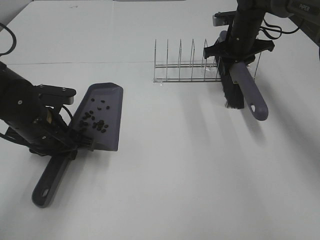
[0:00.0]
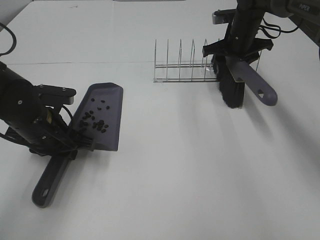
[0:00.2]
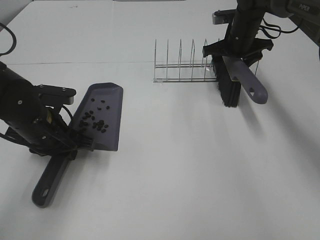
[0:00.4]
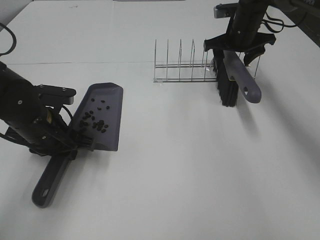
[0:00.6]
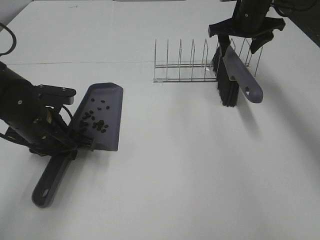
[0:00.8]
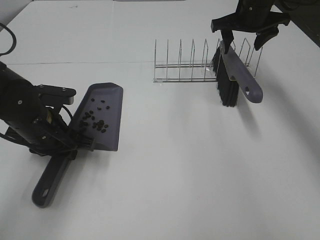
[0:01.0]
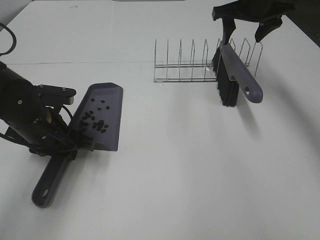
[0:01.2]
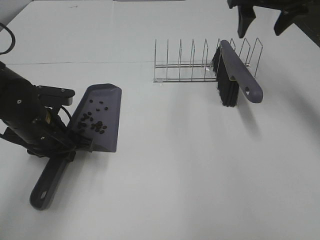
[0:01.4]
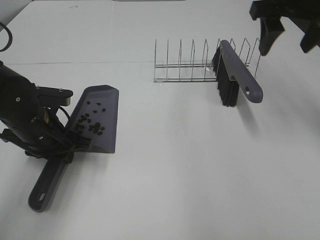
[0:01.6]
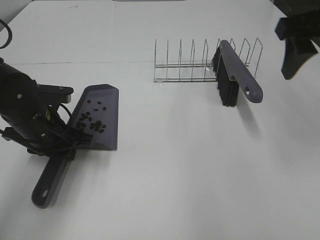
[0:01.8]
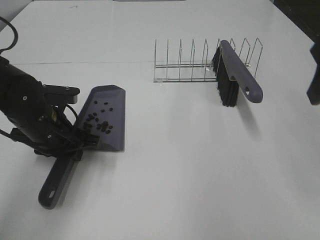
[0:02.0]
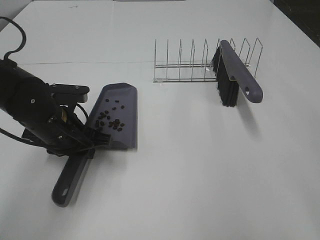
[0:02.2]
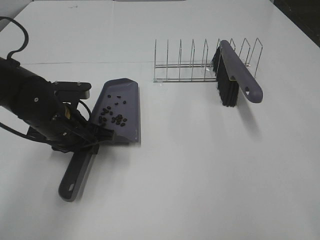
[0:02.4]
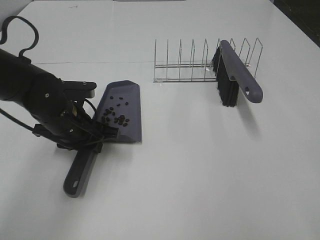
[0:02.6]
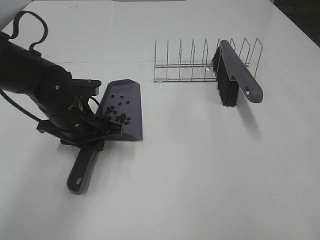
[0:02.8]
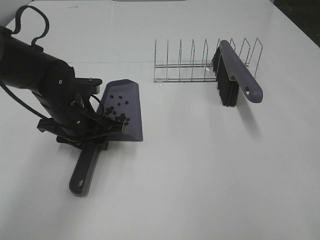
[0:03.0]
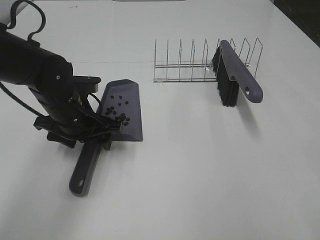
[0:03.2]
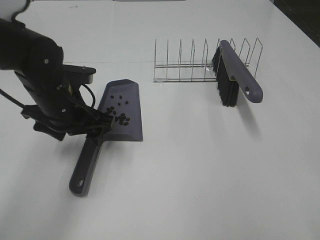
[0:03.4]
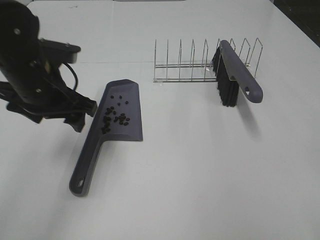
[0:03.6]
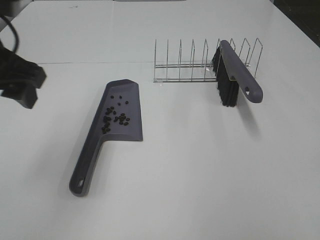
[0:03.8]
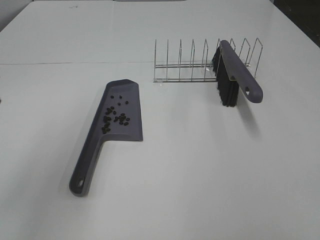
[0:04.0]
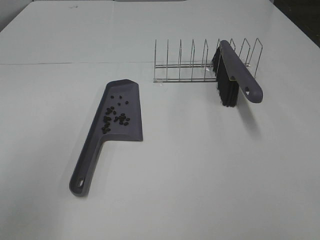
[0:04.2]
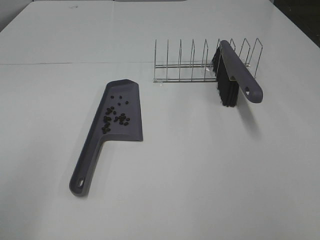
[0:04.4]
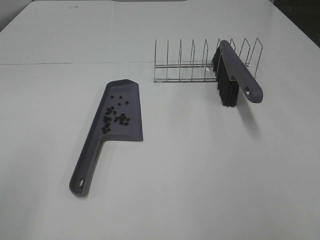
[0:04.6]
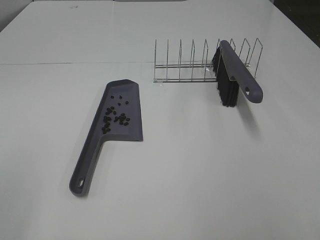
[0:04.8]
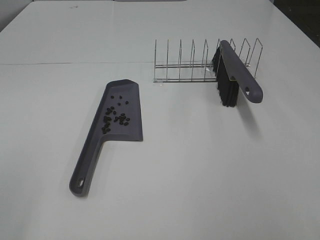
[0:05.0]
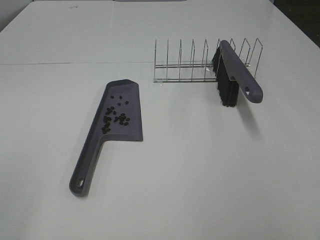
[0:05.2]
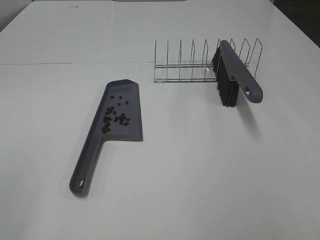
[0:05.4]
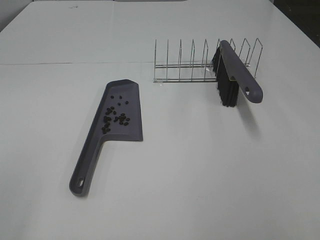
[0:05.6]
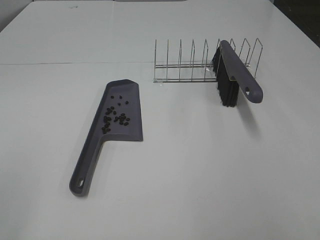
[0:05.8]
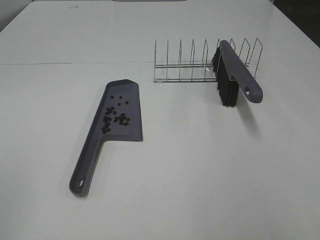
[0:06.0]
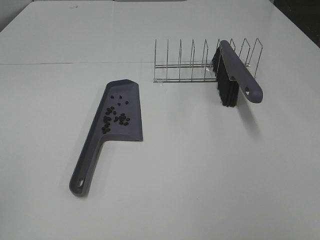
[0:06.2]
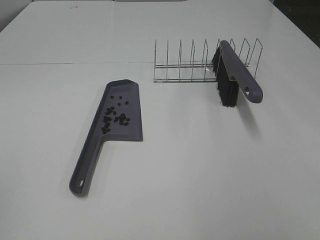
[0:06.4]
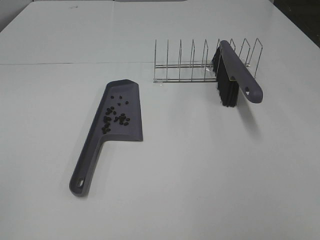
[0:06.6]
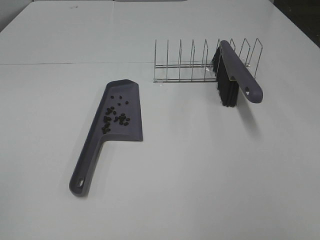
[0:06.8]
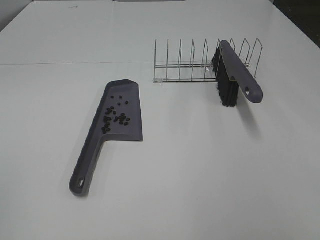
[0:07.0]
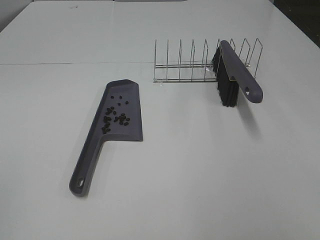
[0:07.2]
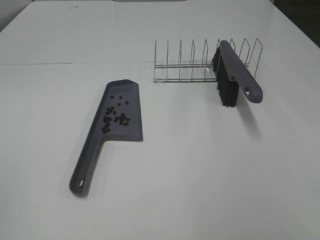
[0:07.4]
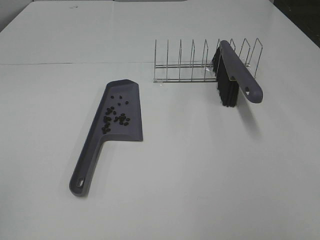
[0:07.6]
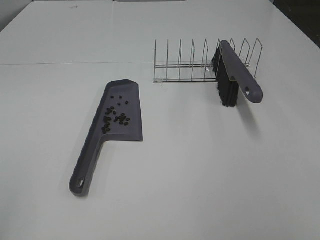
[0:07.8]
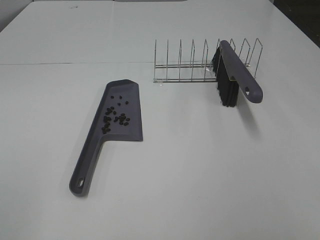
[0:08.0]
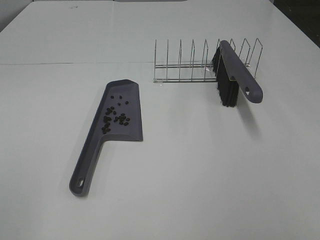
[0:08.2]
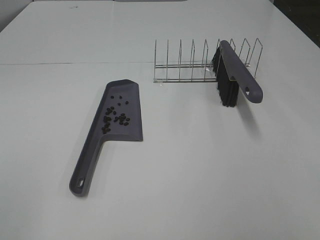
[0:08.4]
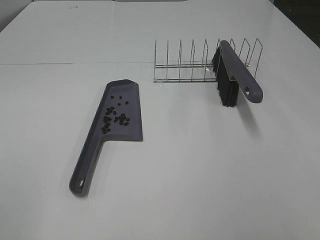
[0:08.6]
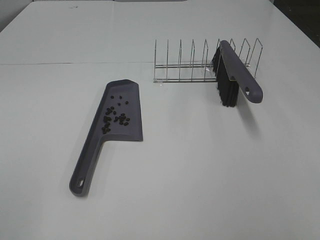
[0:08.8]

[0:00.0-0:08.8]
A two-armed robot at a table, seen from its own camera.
Task of the whole recording: Sweep Coffee Bean.
0:00.0 to 0:01.4: The right gripper shifts about 20 cm upward and backward, and opens.
0:01.4 to 0:03.0: The right gripper shifts roughly 35 cm backward. Meanwhile the left gripper goes approximately 5 cm to the right, and opens up.
0:03.0 to 0:04.4: The left gripper shifts some 35 cm backward, upward and to the left, and opens up, while the right gripper travels backward by about 5 cm.

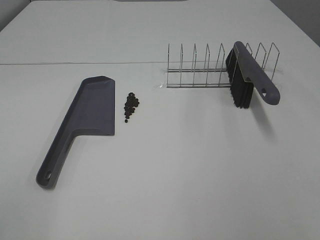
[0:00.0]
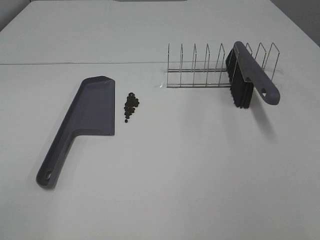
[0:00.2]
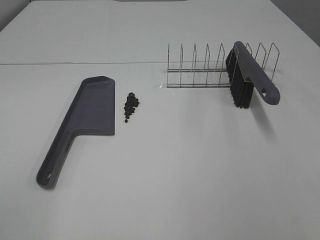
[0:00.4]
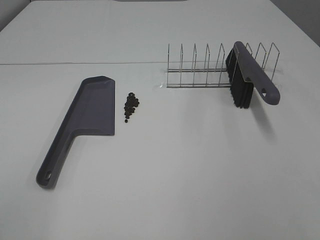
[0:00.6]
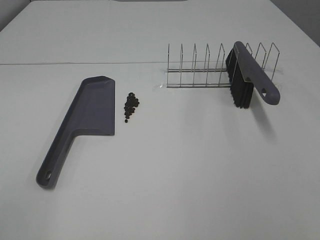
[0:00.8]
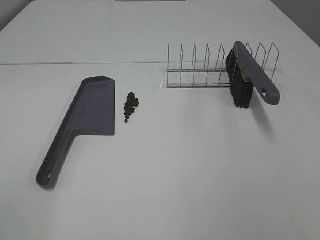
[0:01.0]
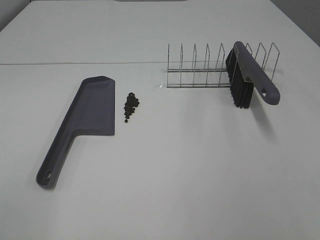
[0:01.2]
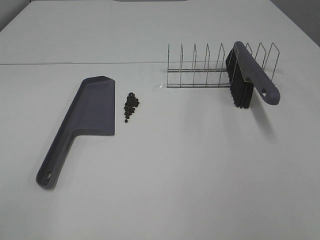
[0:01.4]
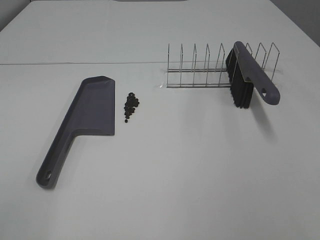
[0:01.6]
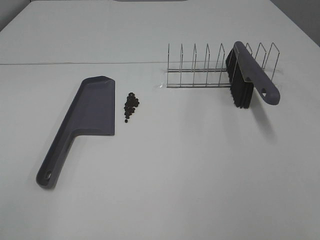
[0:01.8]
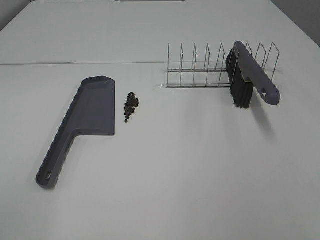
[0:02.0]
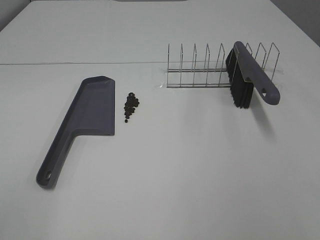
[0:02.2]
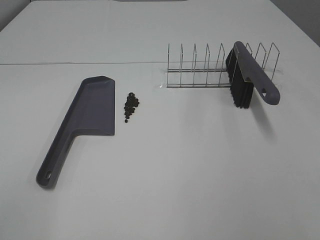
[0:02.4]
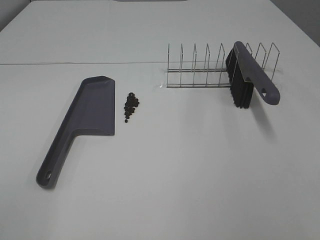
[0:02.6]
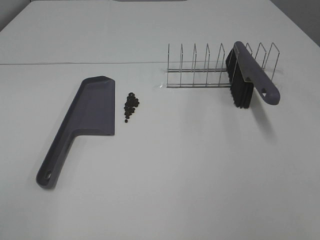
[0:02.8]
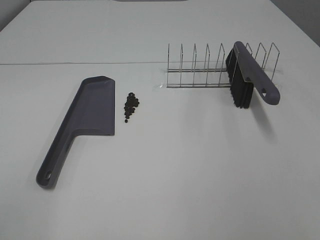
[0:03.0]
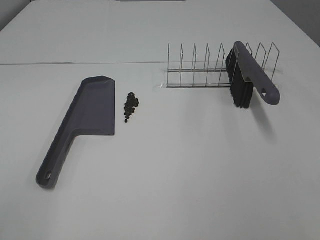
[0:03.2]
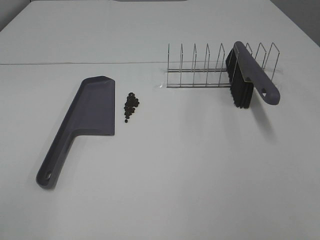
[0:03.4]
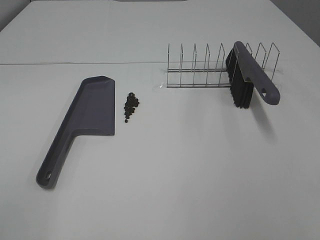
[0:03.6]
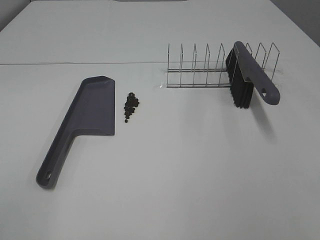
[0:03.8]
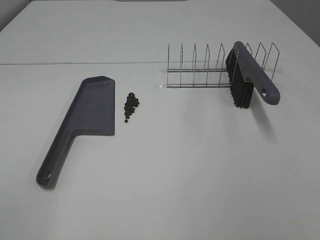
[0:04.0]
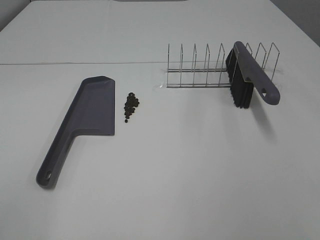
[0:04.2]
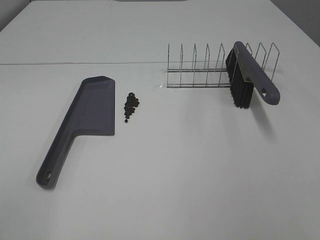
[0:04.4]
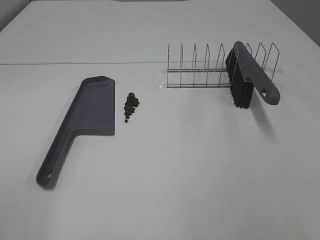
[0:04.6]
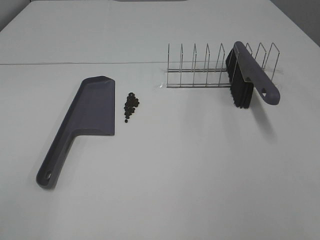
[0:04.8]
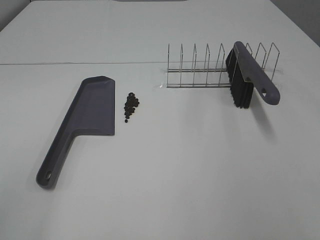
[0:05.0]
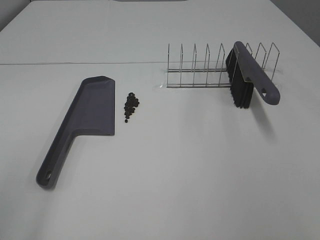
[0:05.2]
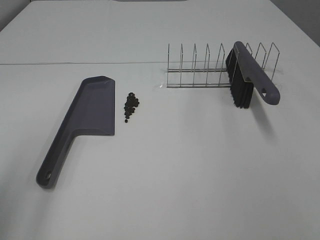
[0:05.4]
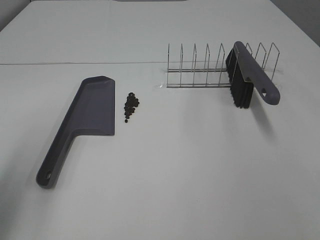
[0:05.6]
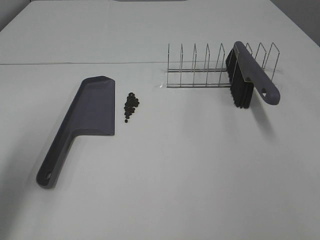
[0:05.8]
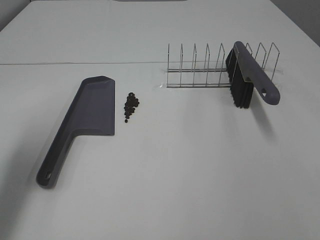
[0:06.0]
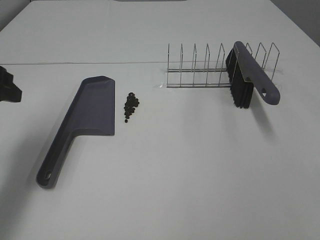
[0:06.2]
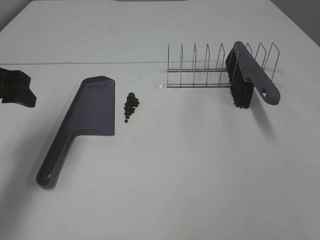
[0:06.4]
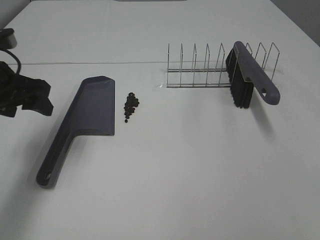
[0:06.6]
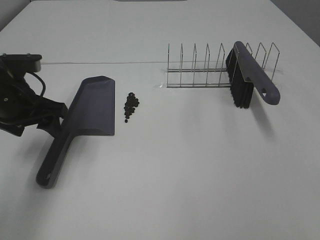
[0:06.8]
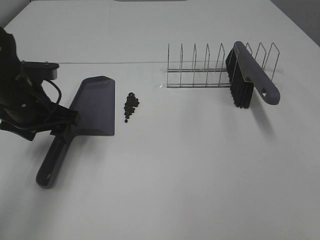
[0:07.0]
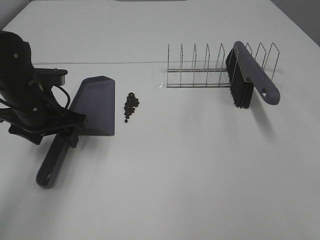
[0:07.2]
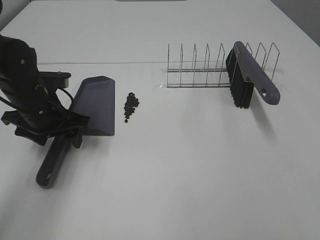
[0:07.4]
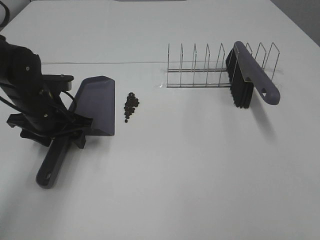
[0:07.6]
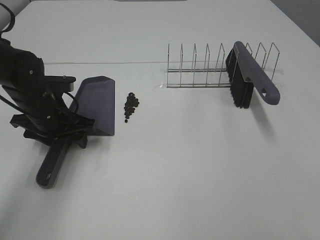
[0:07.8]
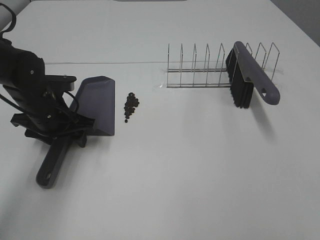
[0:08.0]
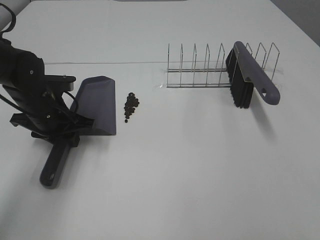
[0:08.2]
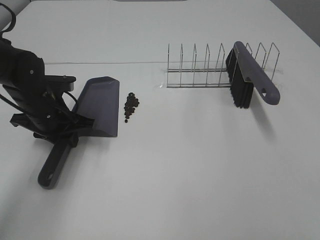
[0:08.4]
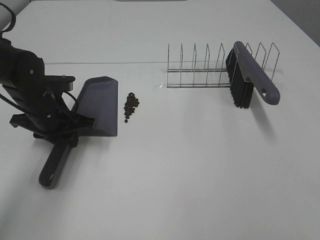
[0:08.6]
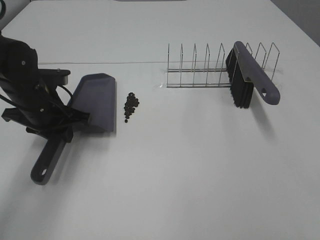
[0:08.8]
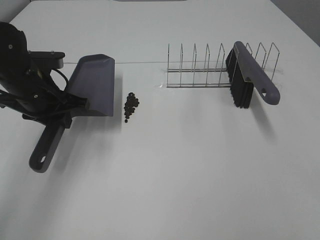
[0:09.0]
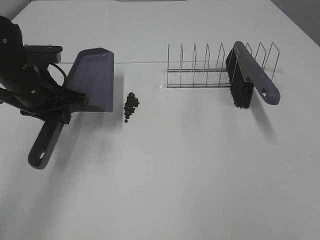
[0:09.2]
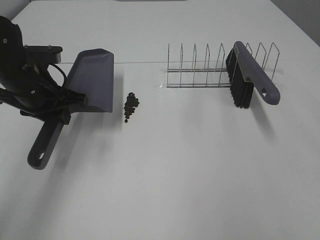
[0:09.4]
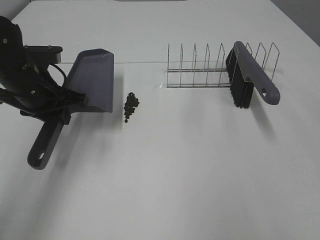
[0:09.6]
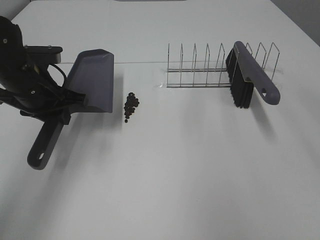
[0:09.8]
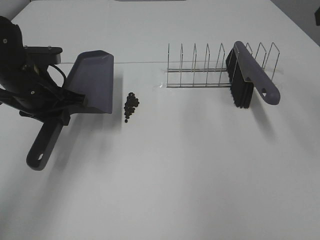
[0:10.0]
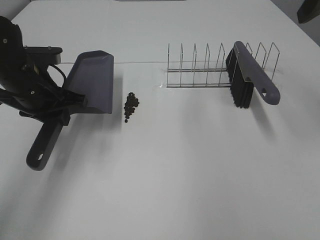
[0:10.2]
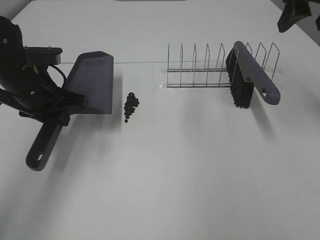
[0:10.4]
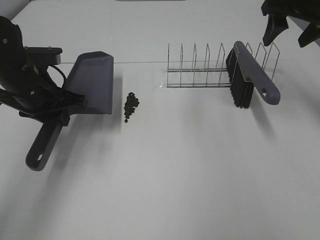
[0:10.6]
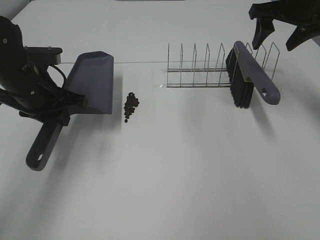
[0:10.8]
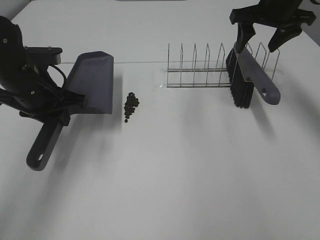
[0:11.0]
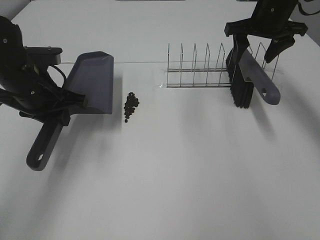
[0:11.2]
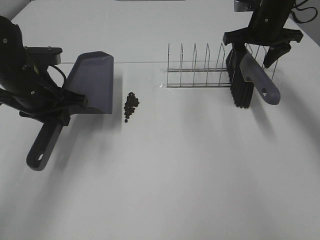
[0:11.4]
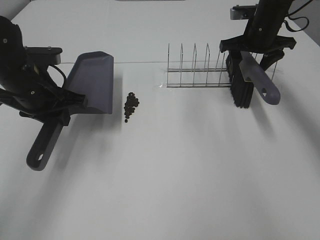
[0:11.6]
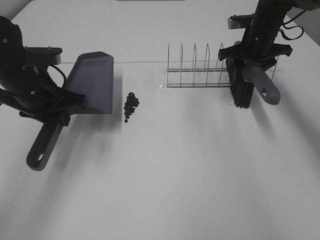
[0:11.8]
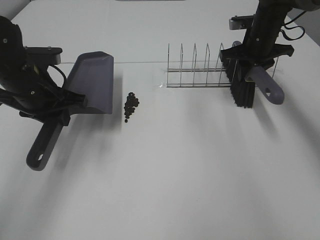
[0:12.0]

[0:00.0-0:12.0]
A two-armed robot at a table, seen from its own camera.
Task of the whole recording: Sweep Coffee Bean.
Step, 0:00.0 to 0:08.6: Left hand: grab the dustpan.
0:00.0 to 0:04.4: The two grippers keep their place.
0:04.4 to 0:06.0: The left gripper shifts roughly 25 cm forward.
0:06.0 to 0:07.6: The left gripper travels downward, forward and to the right by some 20 cm.
0:07.6 to 0:09.0: The left gripper closes its fingers.
0:09.0 to 0:10.4: The right gripper heads forward, covering approximately 35 cm.
0:10.4 to 0:12.0: The right gripper heads downward and forward, covering roughly 20 cm, and closes up.

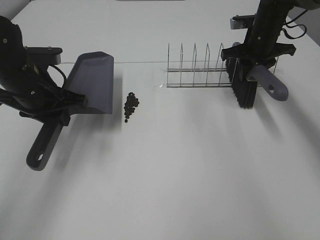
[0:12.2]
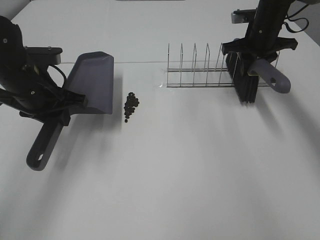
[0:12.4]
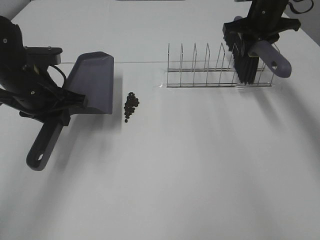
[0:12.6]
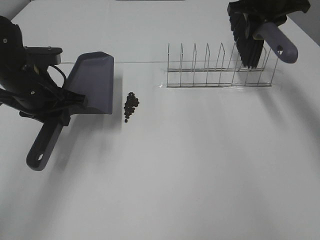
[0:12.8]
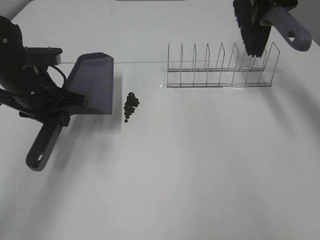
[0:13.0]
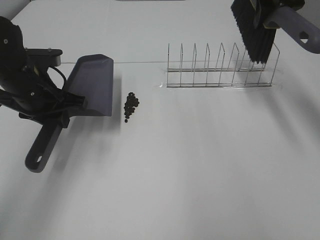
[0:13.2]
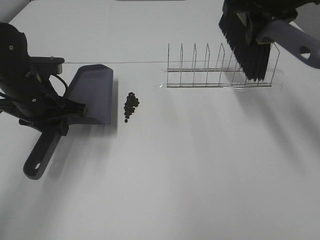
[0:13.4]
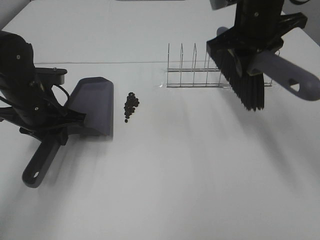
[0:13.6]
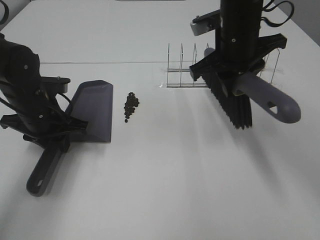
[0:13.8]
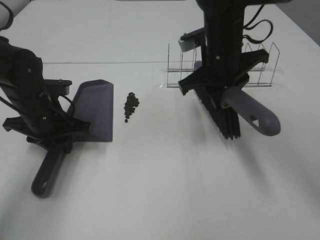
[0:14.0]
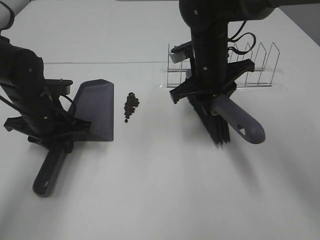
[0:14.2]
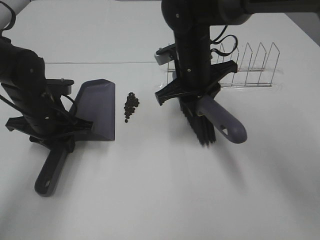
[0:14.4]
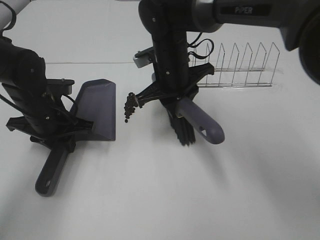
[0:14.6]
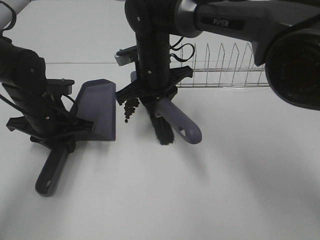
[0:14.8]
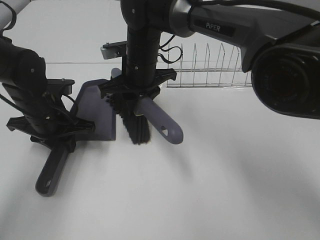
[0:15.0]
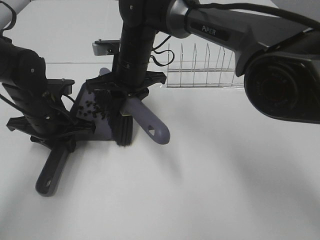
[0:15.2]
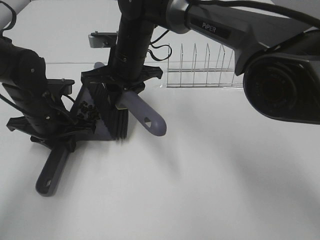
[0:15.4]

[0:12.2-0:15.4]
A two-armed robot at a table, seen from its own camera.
Task of the whole recording: Sweep Coffee Bean.
0:12.2 to 0:13.8: The right gripper travels backward, to the left and upward by some 20 cm. The left gripper moves downward, some 5 cm.
0:13.8 to 0:15.4: The right gripper goes some 15 cm to the left.
